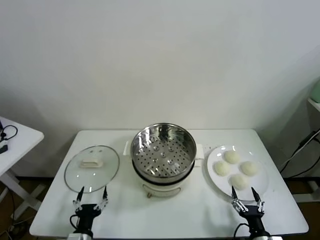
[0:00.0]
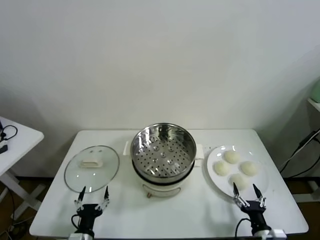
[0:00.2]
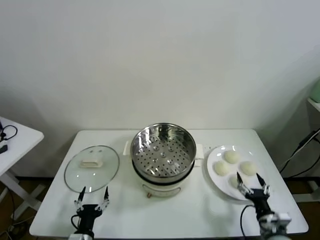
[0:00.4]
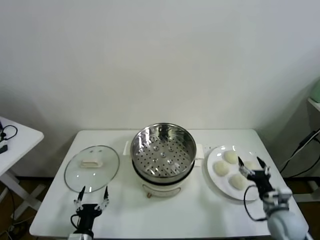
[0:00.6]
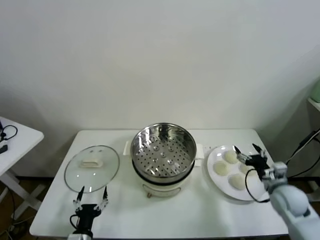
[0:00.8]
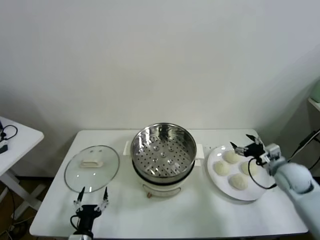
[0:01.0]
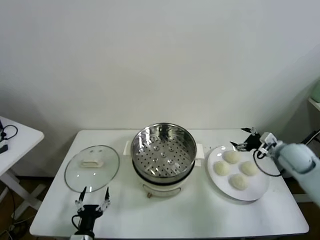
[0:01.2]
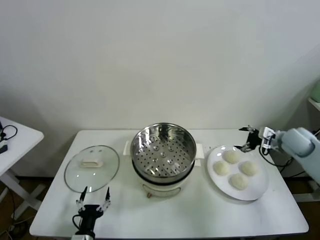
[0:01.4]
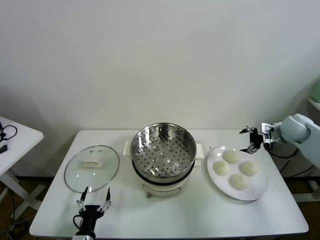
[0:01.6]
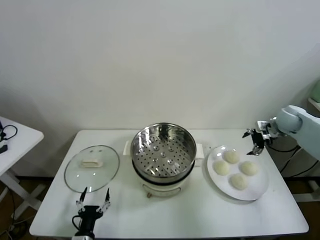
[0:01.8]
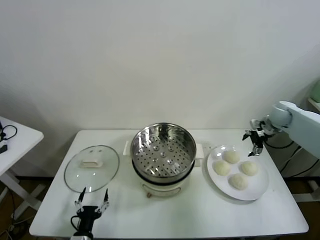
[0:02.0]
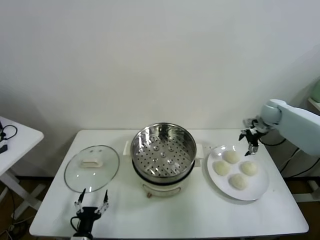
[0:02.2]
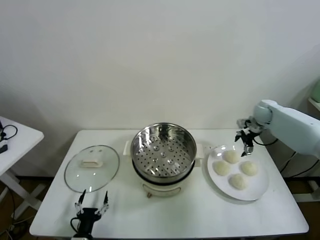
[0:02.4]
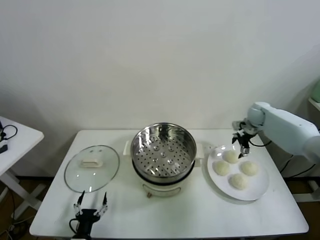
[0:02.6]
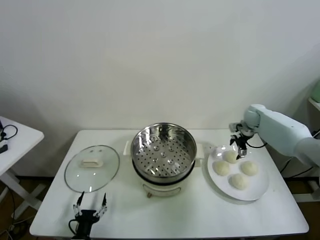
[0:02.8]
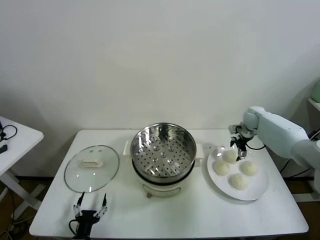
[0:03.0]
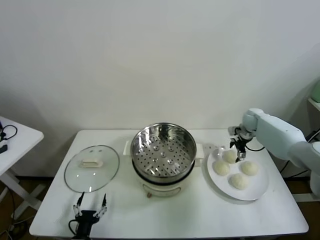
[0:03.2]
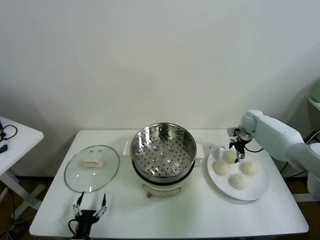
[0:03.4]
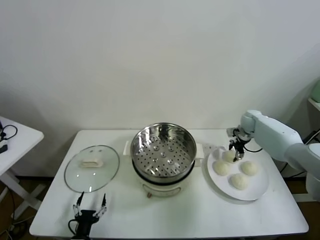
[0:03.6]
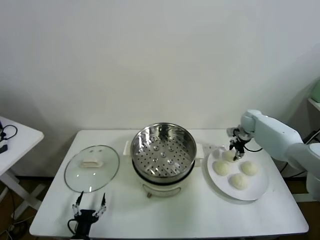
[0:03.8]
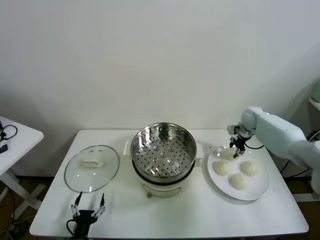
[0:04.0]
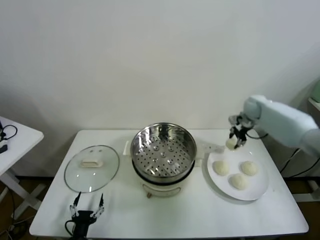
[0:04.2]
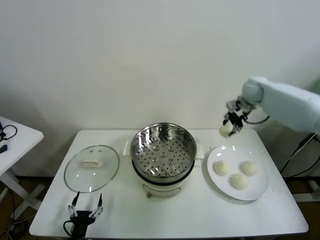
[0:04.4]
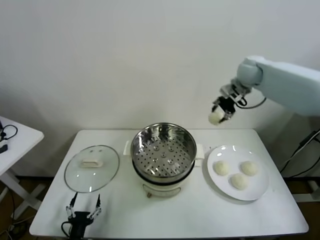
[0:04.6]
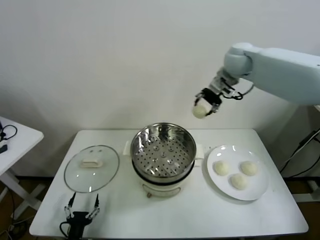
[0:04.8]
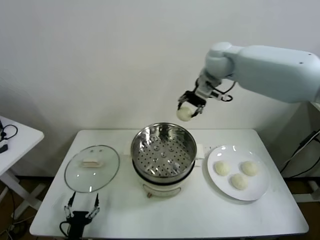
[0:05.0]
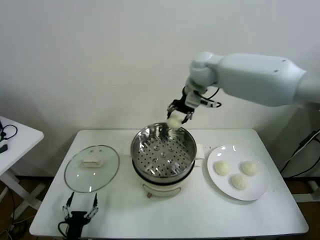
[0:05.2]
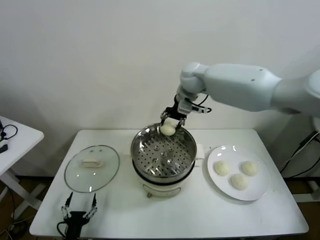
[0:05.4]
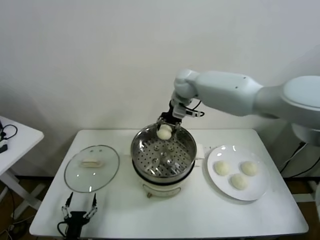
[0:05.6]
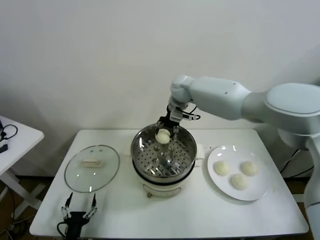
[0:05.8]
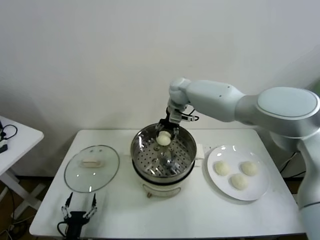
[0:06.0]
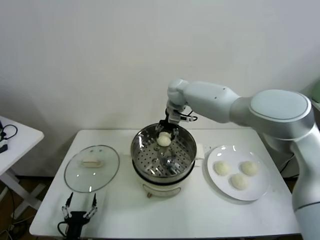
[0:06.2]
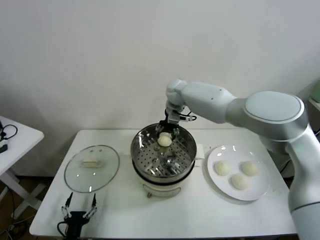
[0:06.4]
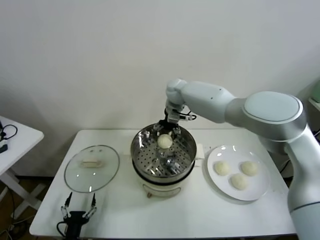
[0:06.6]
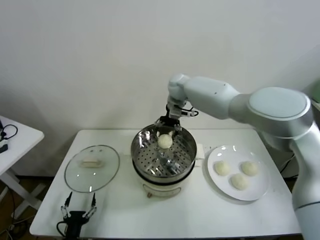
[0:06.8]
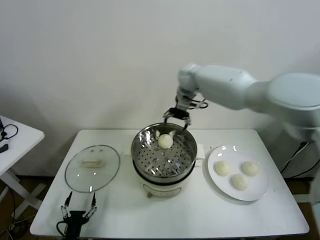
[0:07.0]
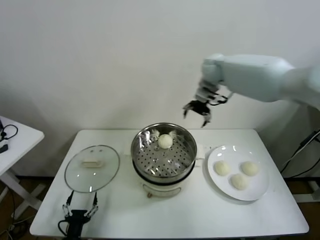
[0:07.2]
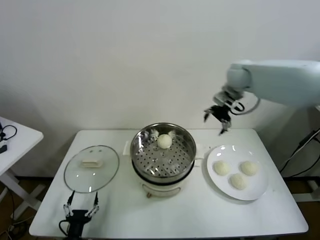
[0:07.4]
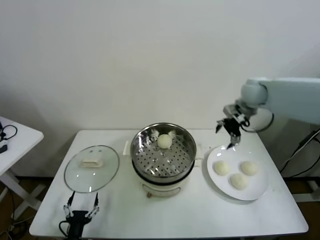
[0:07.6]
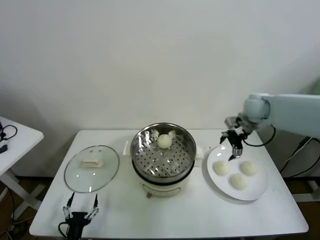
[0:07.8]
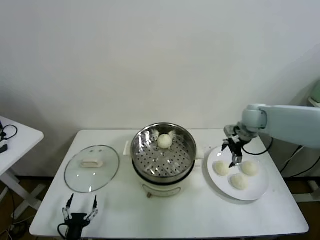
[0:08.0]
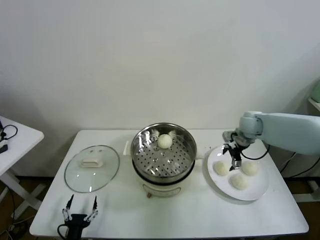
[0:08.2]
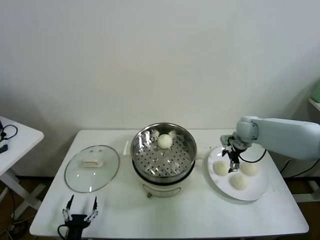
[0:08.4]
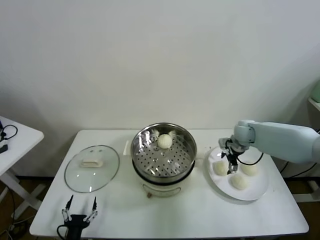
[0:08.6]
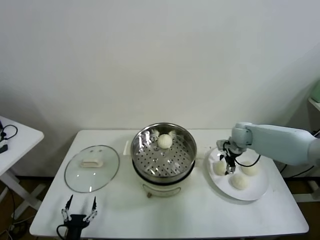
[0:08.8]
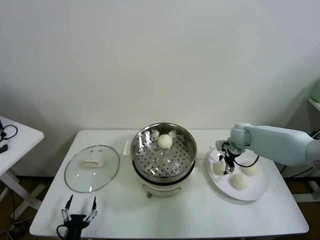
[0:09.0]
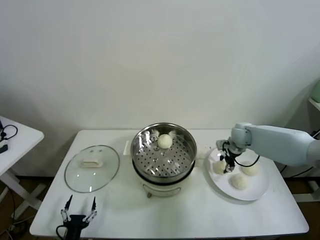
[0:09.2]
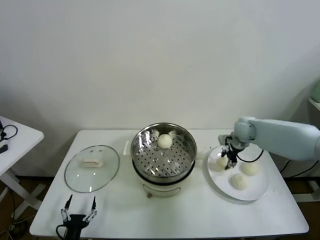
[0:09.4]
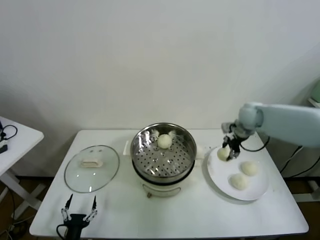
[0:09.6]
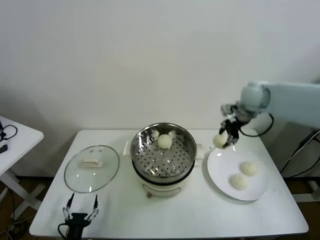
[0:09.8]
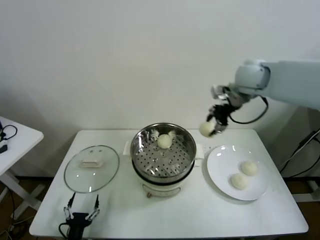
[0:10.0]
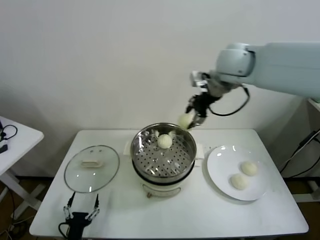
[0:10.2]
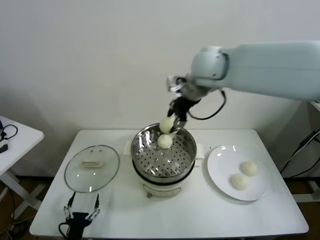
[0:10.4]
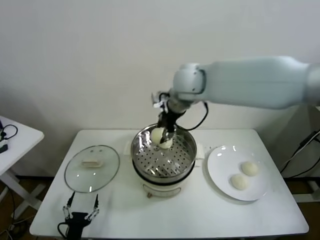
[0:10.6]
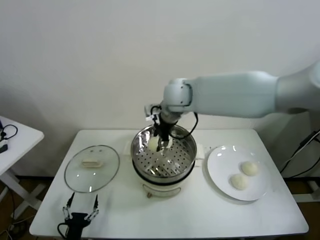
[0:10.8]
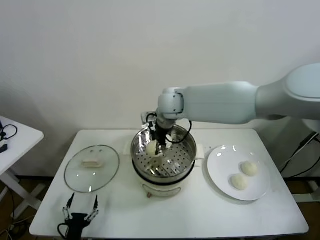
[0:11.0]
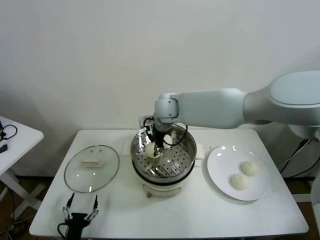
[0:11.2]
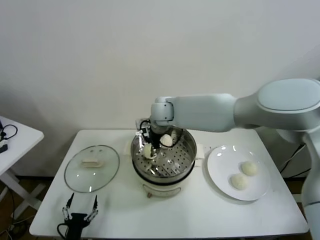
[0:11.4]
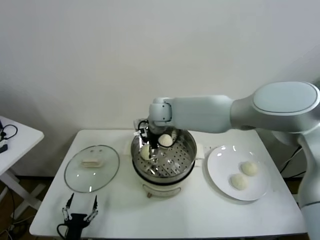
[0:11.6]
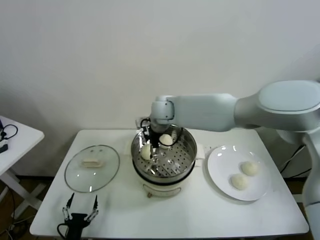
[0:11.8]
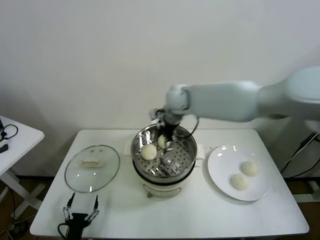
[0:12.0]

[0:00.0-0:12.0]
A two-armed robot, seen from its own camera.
Task of the whole recording: take steamed baozi put them in steamer.
Step, 0:00.0 to 0:03.4: Grasp the baozi in the plate with right gripper.
Step, 0:03.6 to 0:06.4: Place the baozi on the steamer with right gripper.
Step, 0:06.6 to 0:08.8: Grasp the baozi in the plate with right gripper.
Step, 0:09.0 to 0:11.6: Place the baozi on the steamer with right gripper.
0:01.6 to 0:03.0: The right gripper is displaced forward, downward and to the left by about 15 cm.
0:03.0 to 0:04.4: The right gripper goes roughly 20 cm upward, and closes up.
0:04.4 to 0:06.0: The right gripper goes some 25 cm to the left.
0:06.0 to 0:07.6: The right gripper is displaced to the right by about 25 cm, and opens up.
0:07.6 to 0:09.0: The right gripper heads downward, covering about 15 cm, and closes its fingers.
0:09.0 to 0:10.4: The right gripper travels upward and to the left by roughly 35 cm.
0:10.4 to 0:12.0: The right gripper is displaced downward by some 10 cm, and opens.

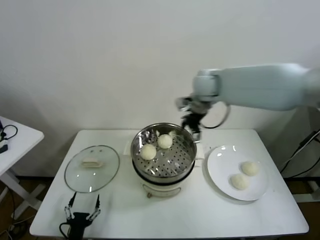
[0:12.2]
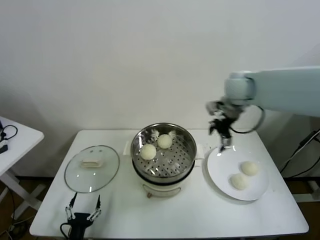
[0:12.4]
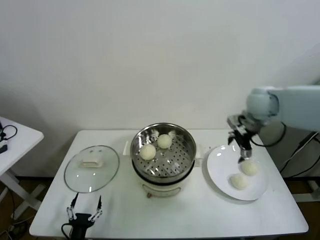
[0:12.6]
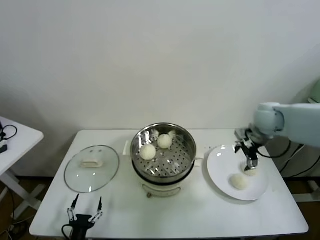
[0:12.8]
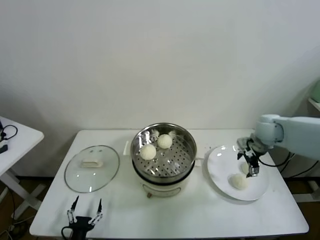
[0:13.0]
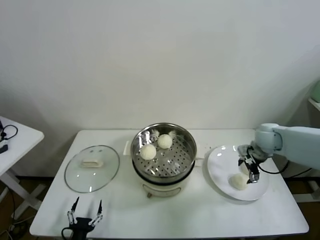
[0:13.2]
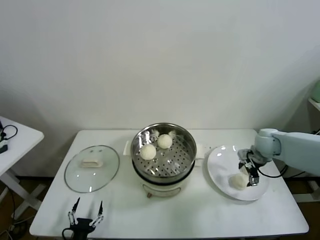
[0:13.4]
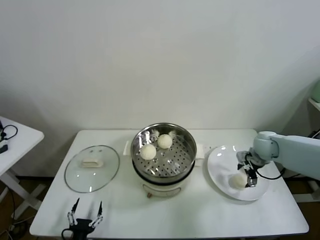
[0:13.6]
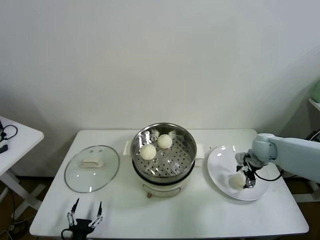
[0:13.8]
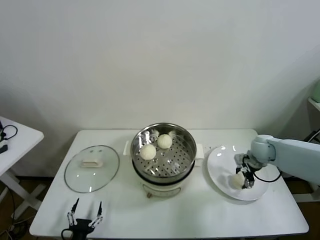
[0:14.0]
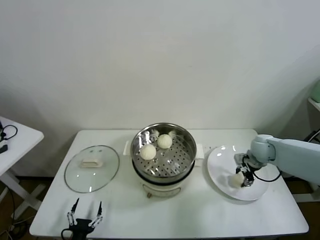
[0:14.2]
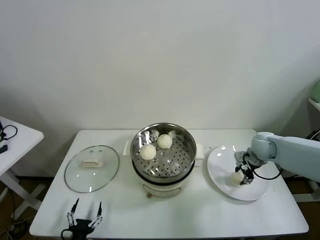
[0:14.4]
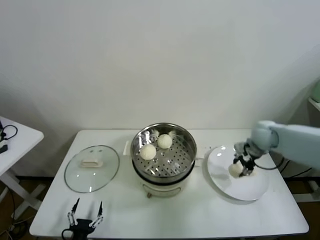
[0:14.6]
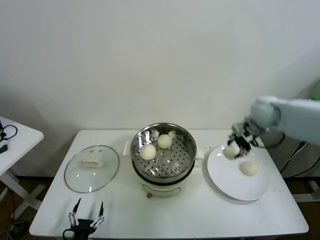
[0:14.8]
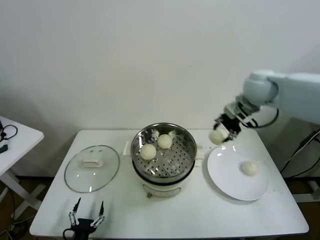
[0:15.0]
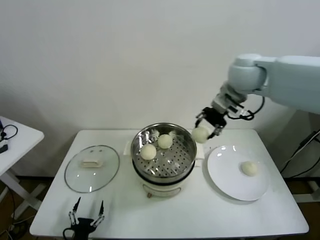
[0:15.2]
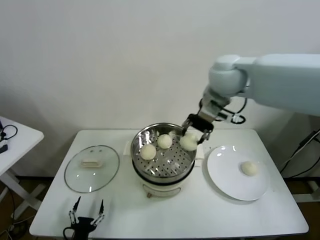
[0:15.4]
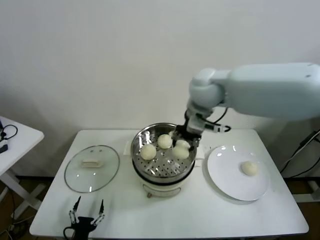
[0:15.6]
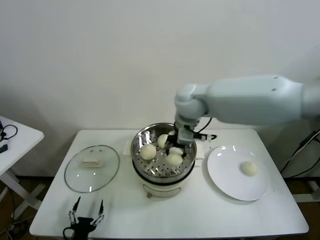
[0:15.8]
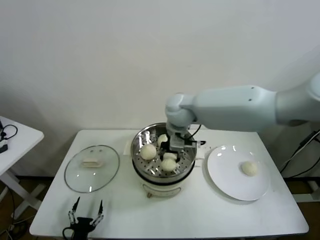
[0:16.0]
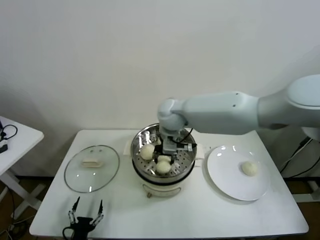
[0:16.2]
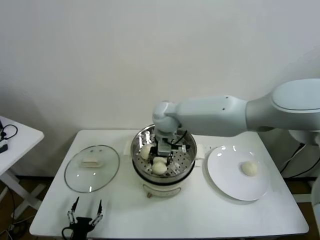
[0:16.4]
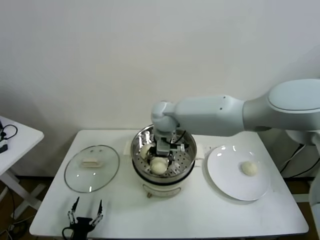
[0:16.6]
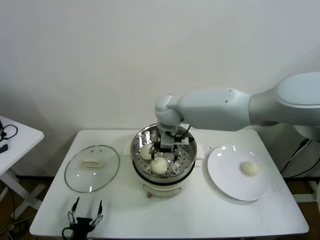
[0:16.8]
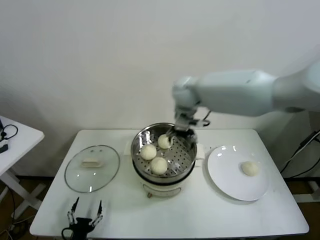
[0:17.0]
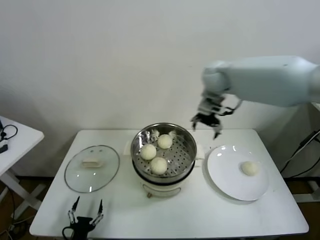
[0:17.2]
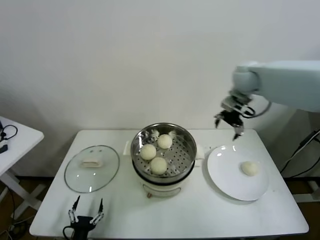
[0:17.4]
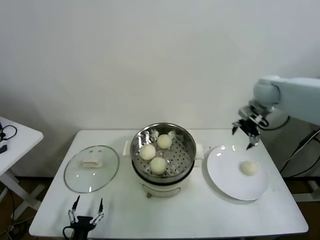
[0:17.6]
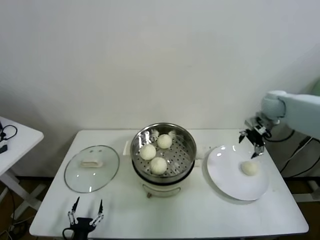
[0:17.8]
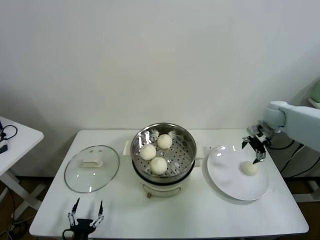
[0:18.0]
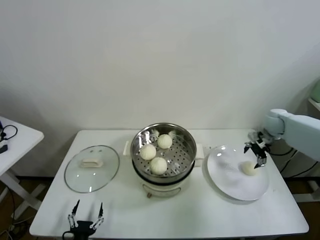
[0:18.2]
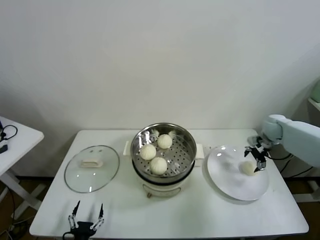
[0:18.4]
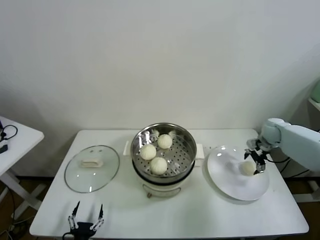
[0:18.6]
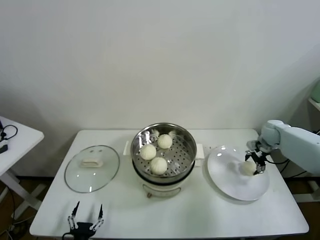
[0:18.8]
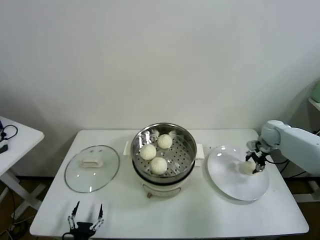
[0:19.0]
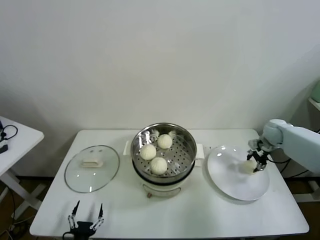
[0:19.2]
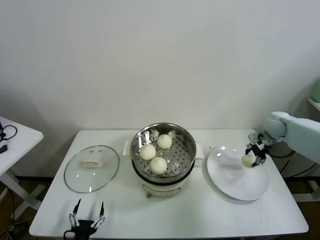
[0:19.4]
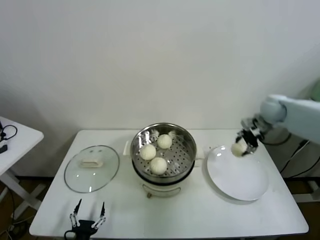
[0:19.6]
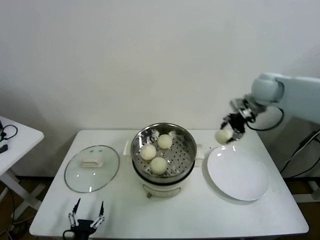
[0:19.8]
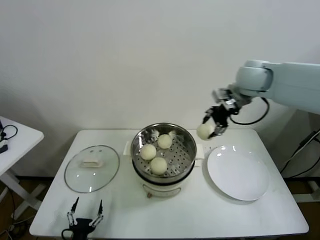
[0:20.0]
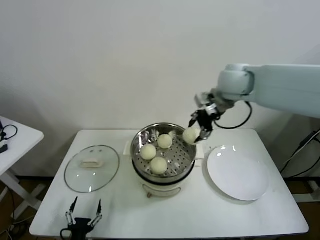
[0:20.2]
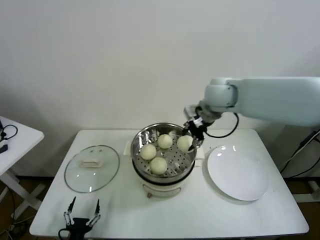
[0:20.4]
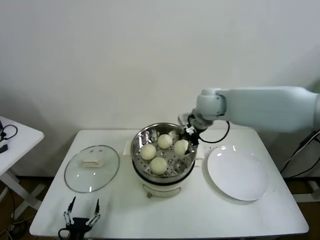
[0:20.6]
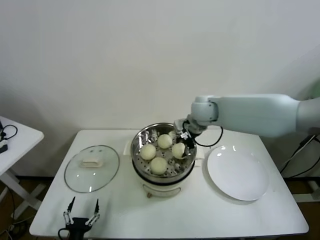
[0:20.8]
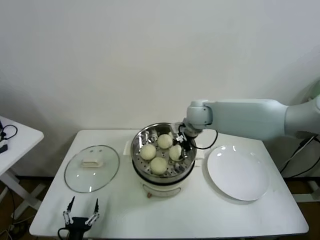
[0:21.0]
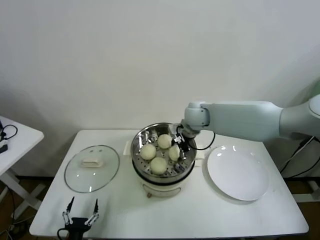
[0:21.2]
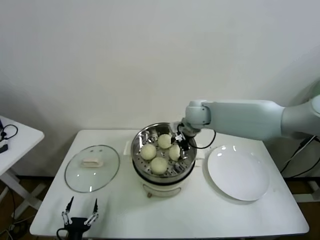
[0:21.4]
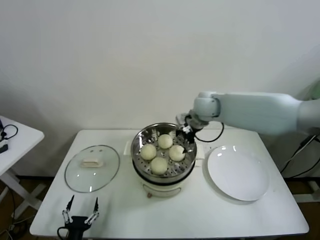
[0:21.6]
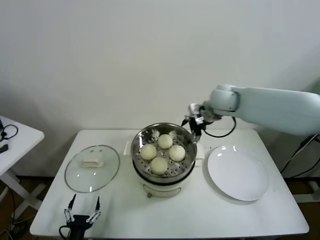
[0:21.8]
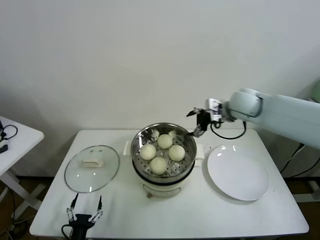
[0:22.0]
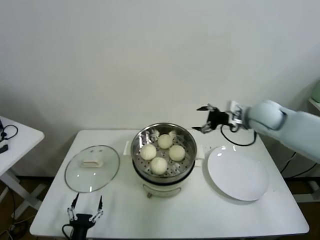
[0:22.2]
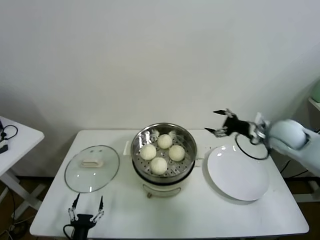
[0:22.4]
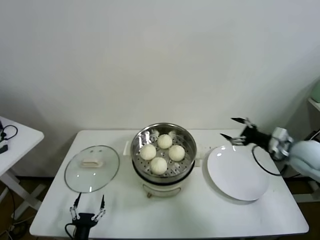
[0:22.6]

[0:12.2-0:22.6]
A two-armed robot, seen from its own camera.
Task of the whole recording: take steamed baozi put them in steamer.
Step, 0:12.2 to 0:13.8: Grasp the baozi in the plate with right gripper.
Step, 0:14.2 to 0:16.6: Place the baozi on the steamer with right gripper.
Step, 0:16.8 to 0:18.8: Grasp the baozi in the plate with right gripper.
Step, 0:19.0 to 0:21.2: Place the baozi on the steamer with right gripper.
0:12.2 to 0:13.6: The right gripper heads downward and to the right, covering roughly 30 cm.
0:13.6 to 0:15.2: The right gripper moves upward and to the left, about 35 cm, and closes up.
0:15.2 to 0:16.6: The right gripper is displaced to the left and downward by about 25 cm, and opens.
0:16.6 to 0:18.2: The right gripper travels to the right by some 40 cm.
0:18.2 to 0:19.6: The right gripper is displaced upward by some 10 cm, and closes.
0:19.6 to 0:21.2: The right gripper heads to the left, covering roughly 25 cm.
0:21.2 to 0:22.6: The right gripper moves to the right and backward, roughly 35 cm, and opens its fingers.
